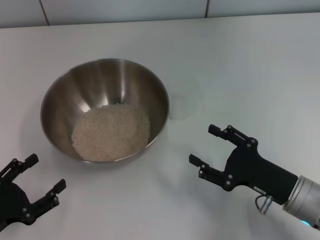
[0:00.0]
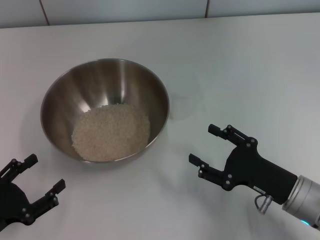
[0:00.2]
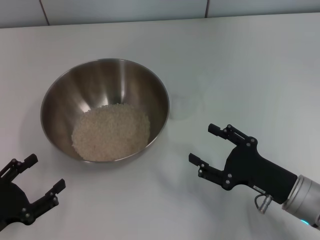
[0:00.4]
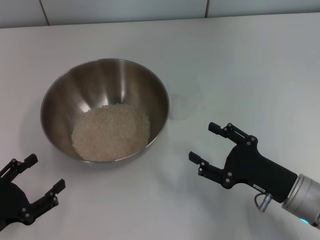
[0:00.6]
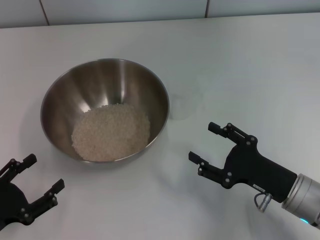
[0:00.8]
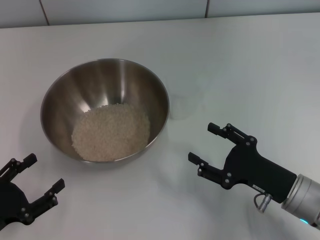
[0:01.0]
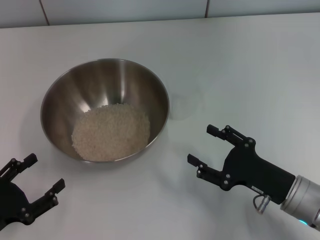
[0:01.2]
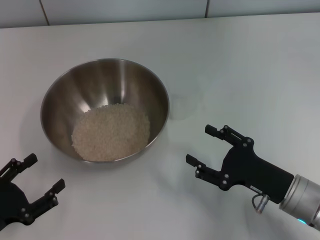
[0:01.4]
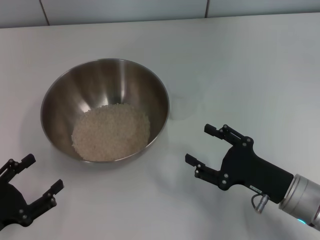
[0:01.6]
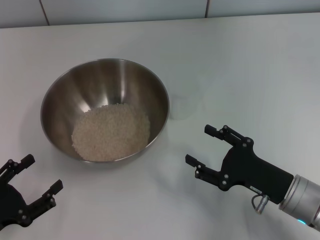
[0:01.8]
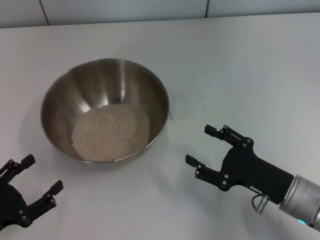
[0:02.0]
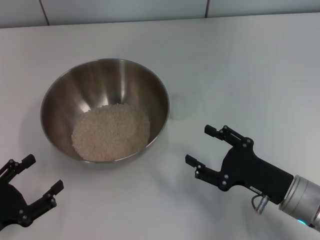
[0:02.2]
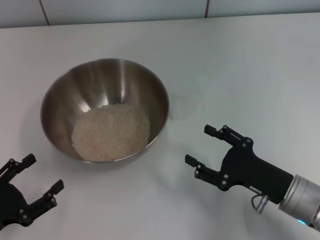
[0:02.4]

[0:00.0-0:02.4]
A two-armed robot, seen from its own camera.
Task of the whole recording: Place the bowl in the middle of the table with one hand and pour the rice from the grain cup into it with the other hand.
0.0 to 2.4 s: Neither gripper changes place.

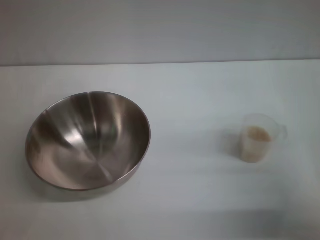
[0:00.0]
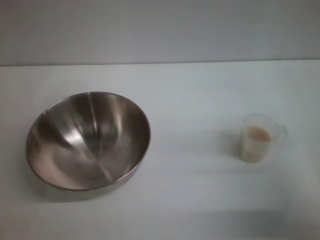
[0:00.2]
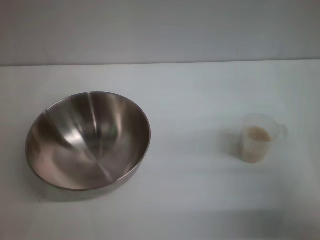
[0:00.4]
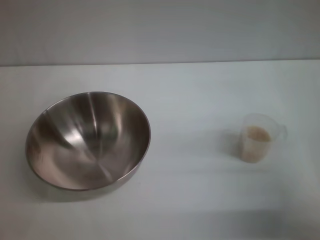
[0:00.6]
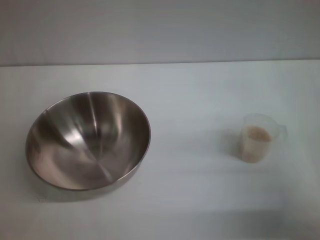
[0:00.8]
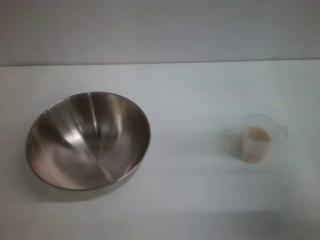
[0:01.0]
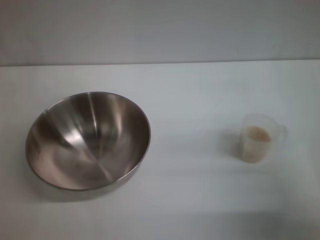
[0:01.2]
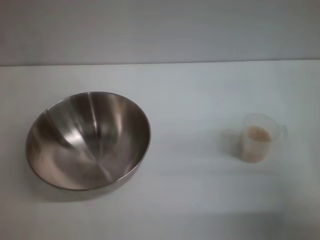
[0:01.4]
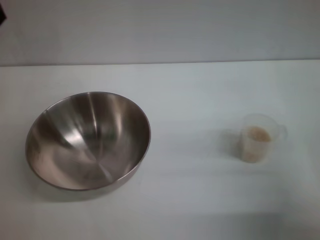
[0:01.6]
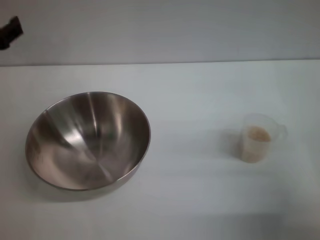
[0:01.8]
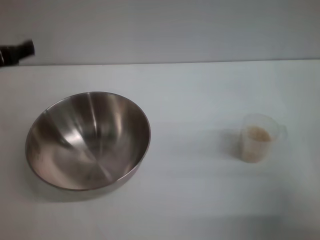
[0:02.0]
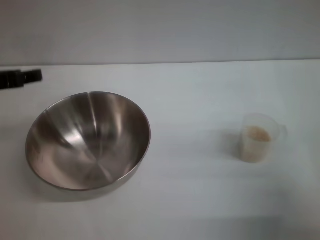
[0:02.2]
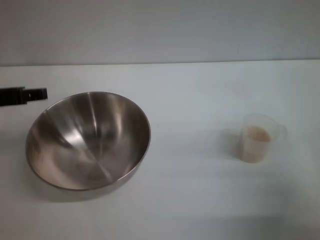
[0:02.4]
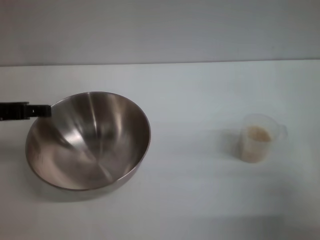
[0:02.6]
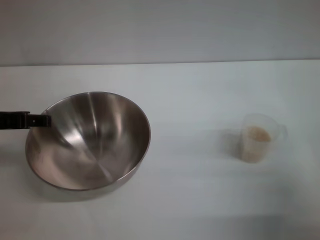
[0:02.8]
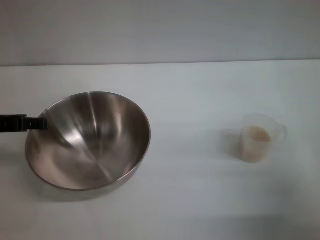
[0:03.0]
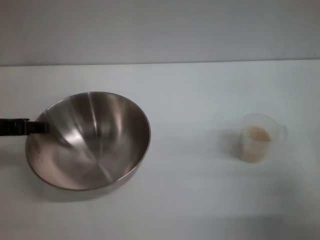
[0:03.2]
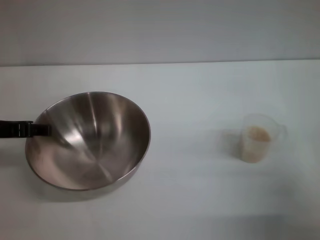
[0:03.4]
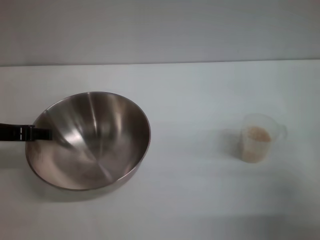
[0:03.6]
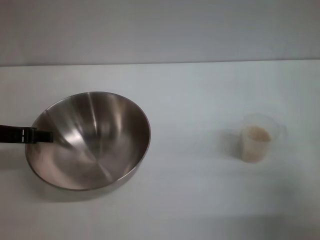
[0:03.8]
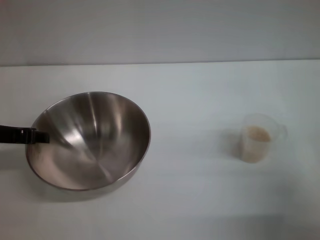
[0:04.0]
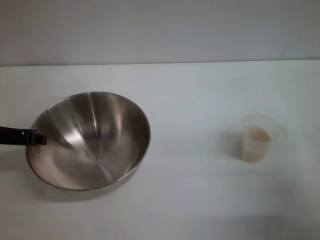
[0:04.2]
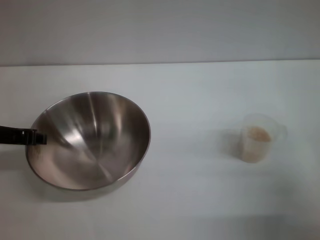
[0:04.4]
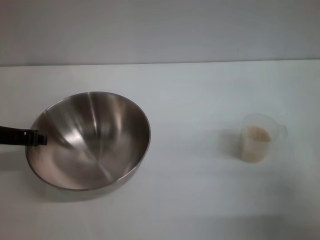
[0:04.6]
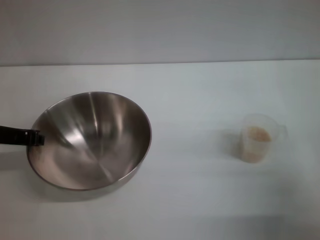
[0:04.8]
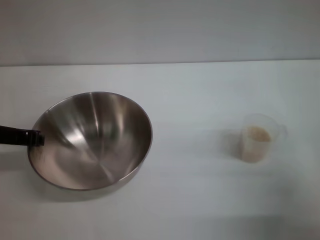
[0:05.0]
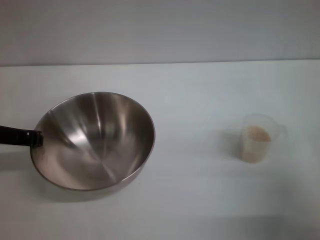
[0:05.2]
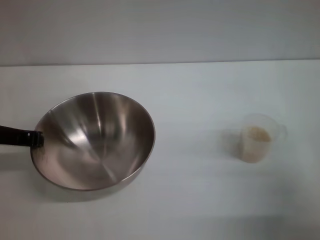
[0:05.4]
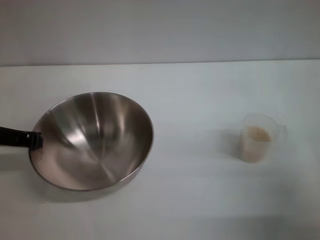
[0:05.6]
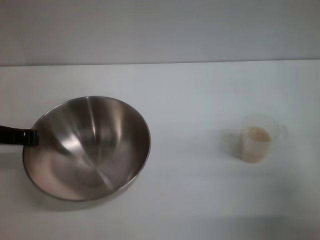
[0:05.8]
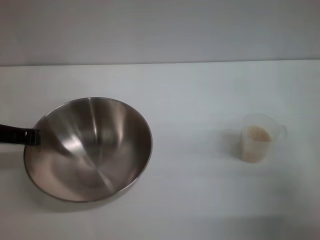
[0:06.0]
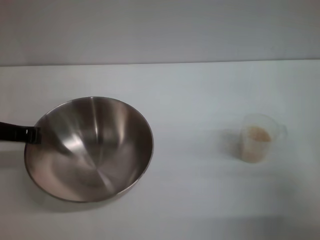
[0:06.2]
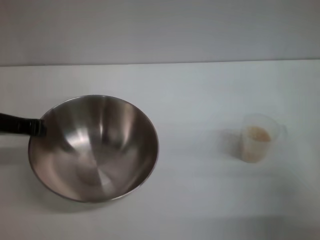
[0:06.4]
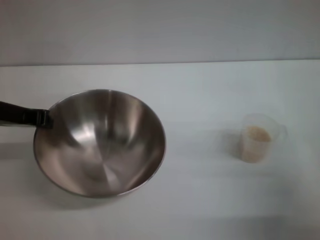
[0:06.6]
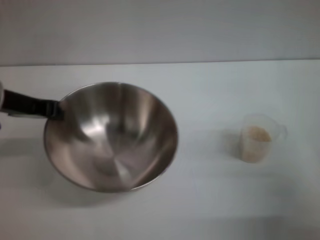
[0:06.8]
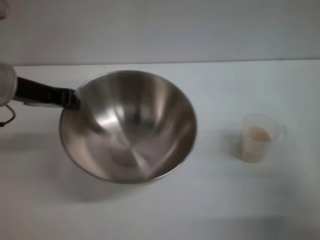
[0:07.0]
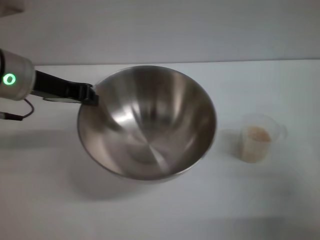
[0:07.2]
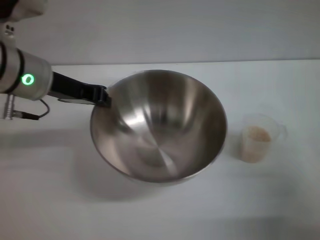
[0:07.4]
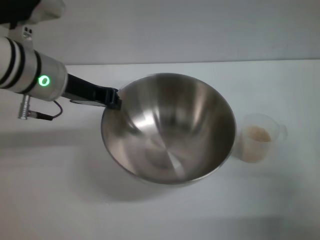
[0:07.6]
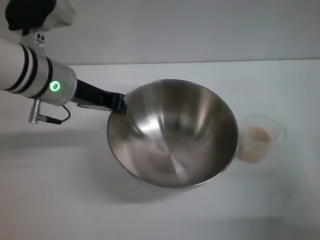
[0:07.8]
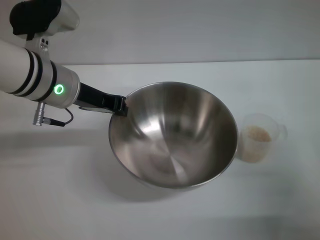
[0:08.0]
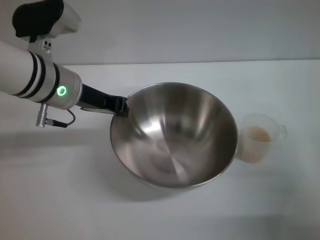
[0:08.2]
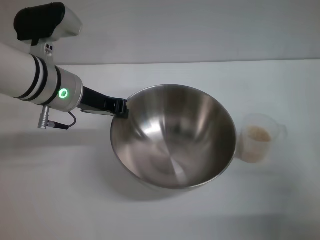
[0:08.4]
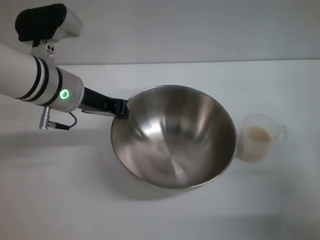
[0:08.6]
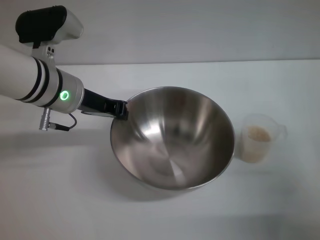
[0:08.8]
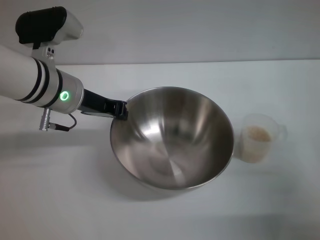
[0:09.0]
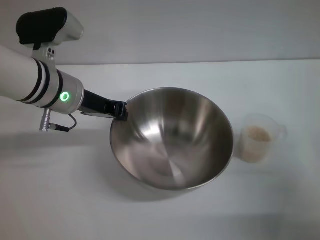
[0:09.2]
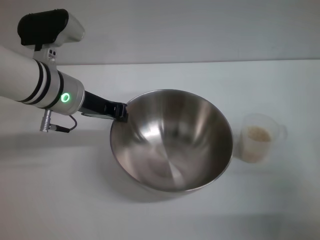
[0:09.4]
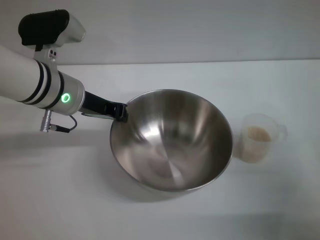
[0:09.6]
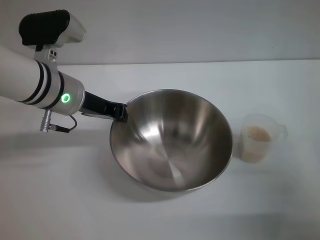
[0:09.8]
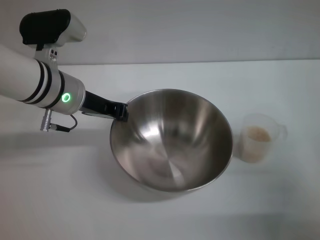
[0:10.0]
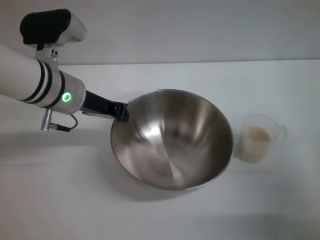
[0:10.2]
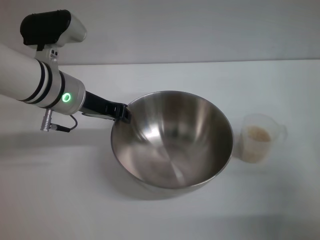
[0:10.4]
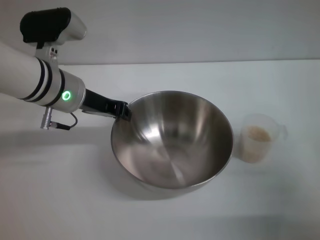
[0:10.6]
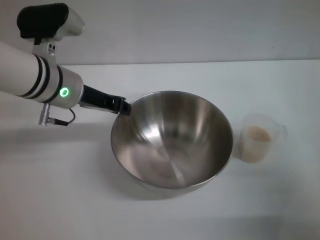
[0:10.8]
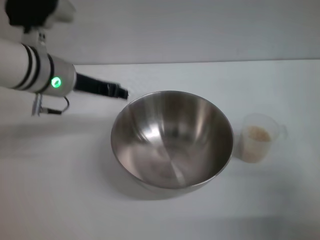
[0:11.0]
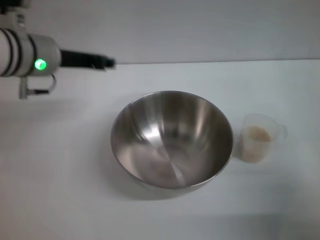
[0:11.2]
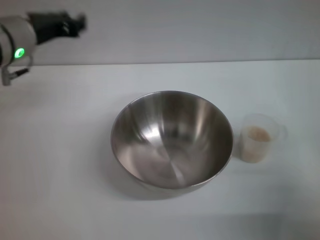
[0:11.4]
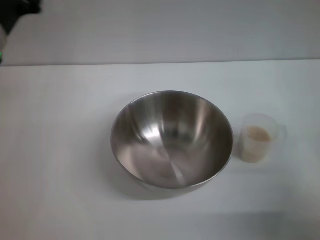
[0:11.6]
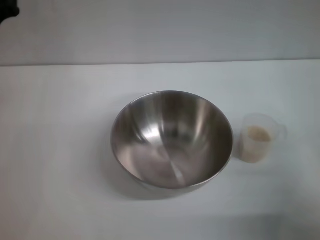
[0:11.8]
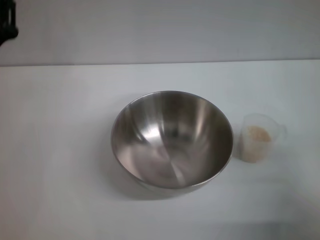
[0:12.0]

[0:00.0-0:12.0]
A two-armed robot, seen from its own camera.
Task of the whole recording: Place the bowl in the middle of the table with one hand and pour the rice from the grain cup into it with the other hand.
Step, 0.0 to 6.8 s: Pick up the bowl with the left gripper.
Step, 7.0 to 11.0 s: Place the bowl in the center of view with the left gripper.
3.0 to 4.4 s: The left gripper closes.
4.4 to 6.0 s: The left gripper closes its fingers.
6.0 to 7.6 s: The left gripper travels to the right and forward by approximately 10 cm.
7.6 to 9.0 s: There are only small adjustments of the grippers.
9.0 to 10.4 s: Both grippers stay about where they are.
10.4 to 12.0 s: The left gripper heads backward and to the left, covering roughly 10 cm, and opens.

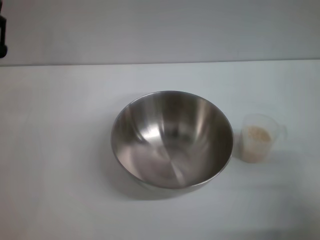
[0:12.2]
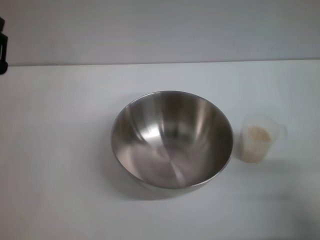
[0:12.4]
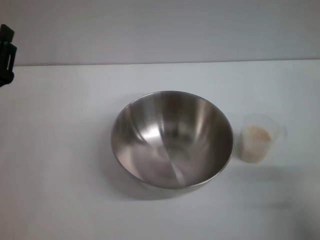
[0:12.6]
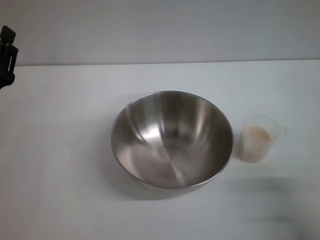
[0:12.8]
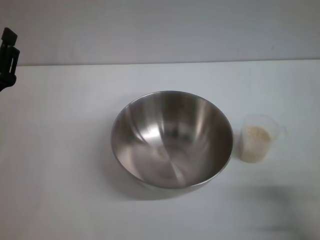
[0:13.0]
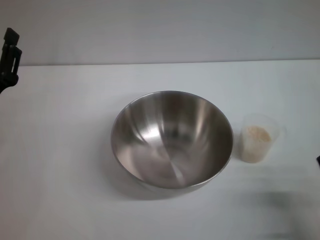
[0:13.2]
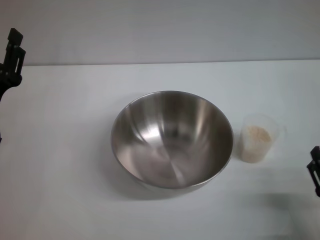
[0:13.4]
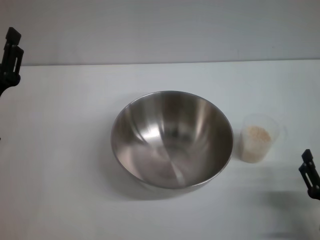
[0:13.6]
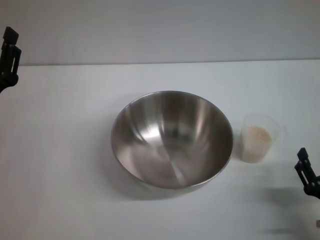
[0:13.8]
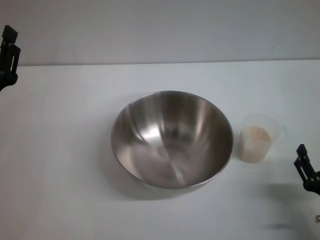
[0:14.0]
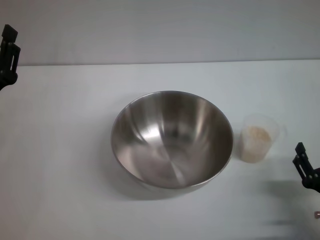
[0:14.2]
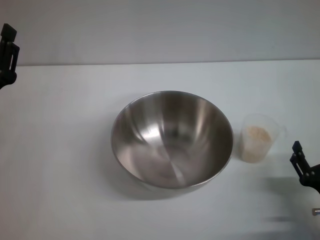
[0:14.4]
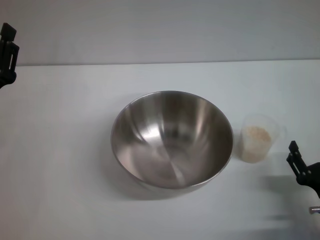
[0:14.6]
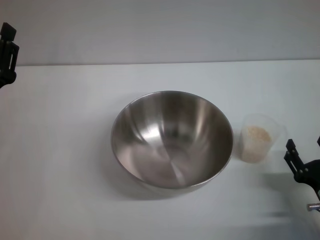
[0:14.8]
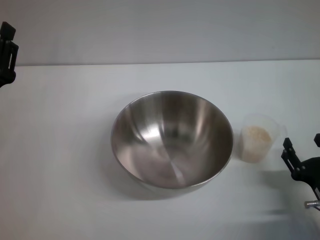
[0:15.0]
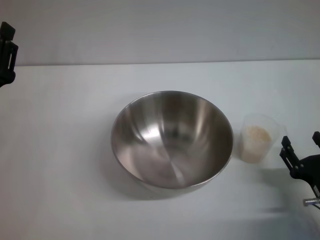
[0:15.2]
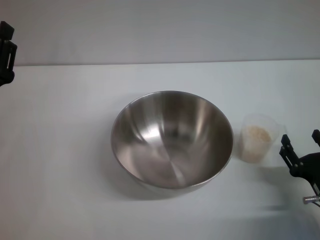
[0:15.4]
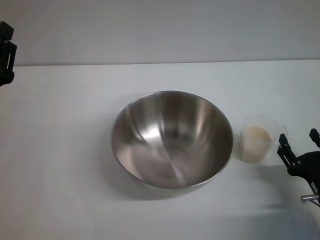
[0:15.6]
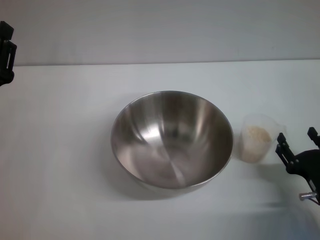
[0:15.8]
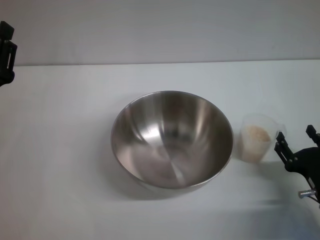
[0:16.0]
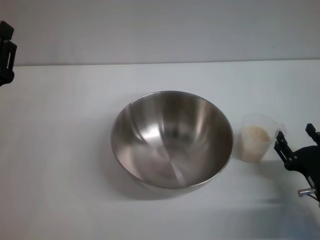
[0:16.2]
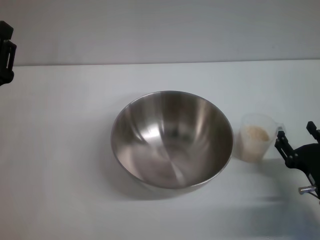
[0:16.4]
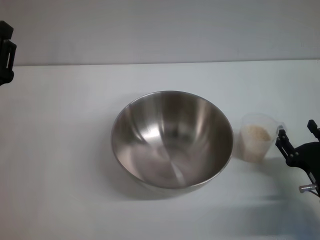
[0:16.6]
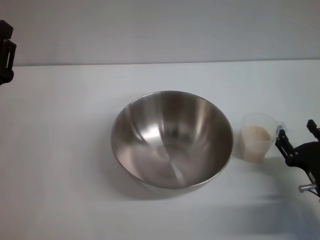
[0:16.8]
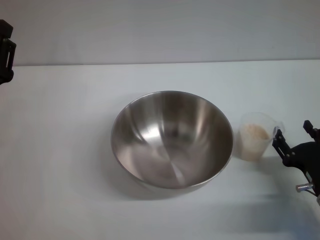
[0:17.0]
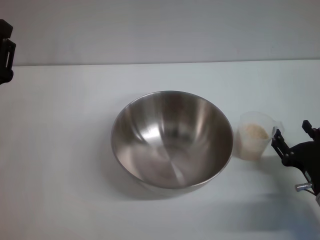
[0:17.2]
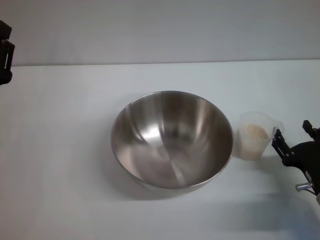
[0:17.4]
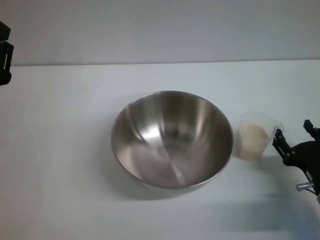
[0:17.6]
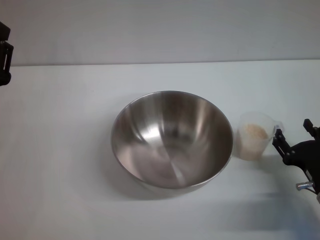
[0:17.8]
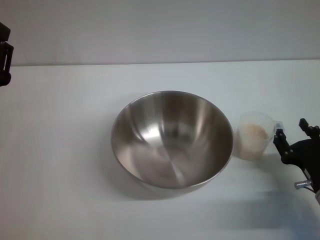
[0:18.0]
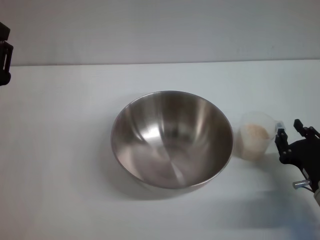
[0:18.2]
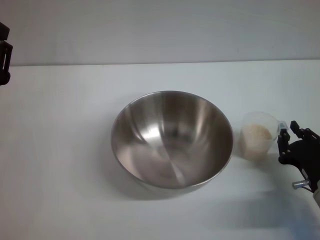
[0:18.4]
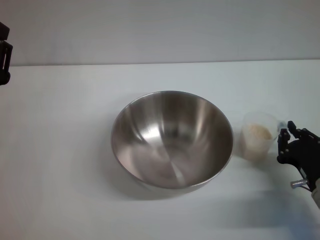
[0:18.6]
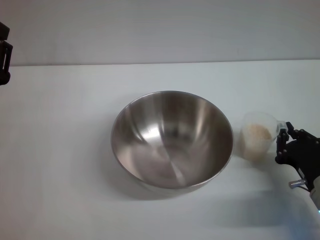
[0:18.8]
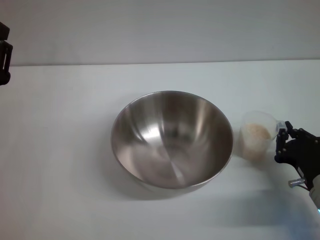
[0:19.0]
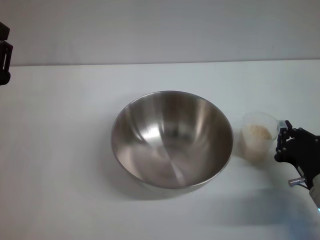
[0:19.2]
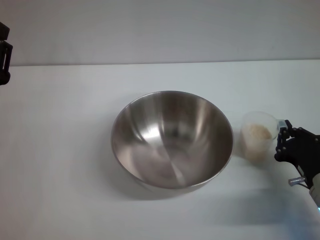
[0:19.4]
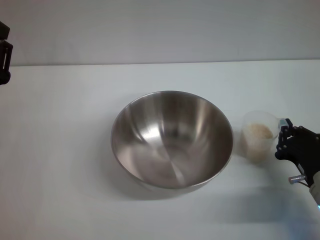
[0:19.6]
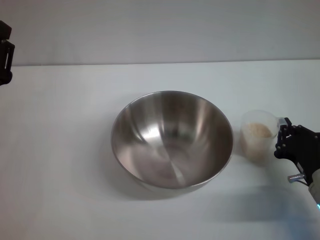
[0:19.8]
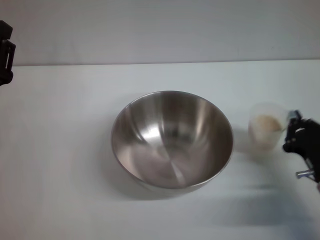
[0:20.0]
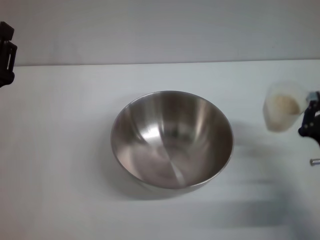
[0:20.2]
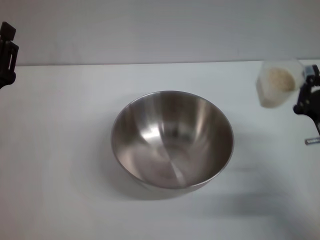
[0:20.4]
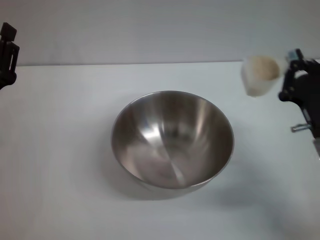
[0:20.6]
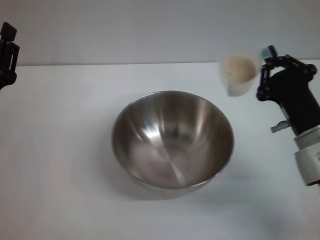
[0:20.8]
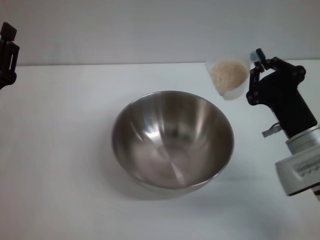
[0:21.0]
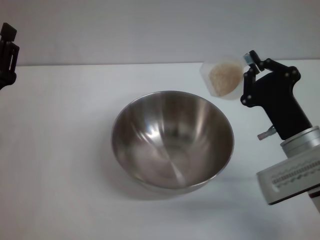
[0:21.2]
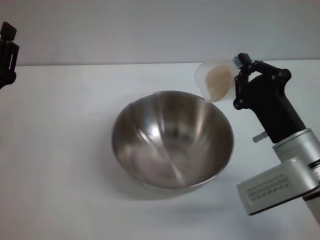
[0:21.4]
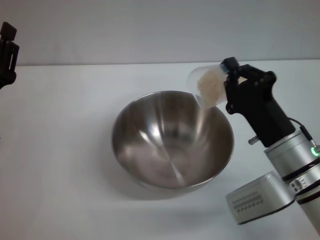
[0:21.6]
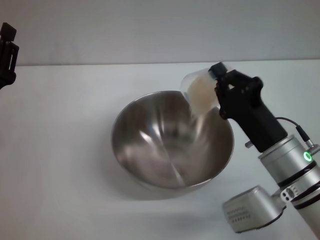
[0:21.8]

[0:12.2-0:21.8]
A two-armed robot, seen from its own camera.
Task of the whole recording: Place the bowl in the middle of the table with one hand and pour the rice from the grain cup into it with the other hand.
Step, 12.2 to 20.0 s: Pick up the cup with rice in it with the right gripper.
12.2 to 13.8 s: The right gripper heads downward and backward, covering roughly 10 cm.
13.8 to 15.4 s: The grippers stay close to where they were, moving slightly.
15.4 to 17.0 s: The grippers move only a little.
17.0 to 18.6 s: The right gripper closes up.
18.6 to 20.2 s: The grippers move only a little.
20.2 to 21.8 s: The right gripper heads to the left, covering roughly 10 cm.
